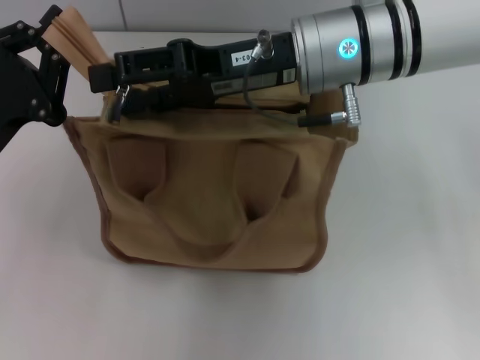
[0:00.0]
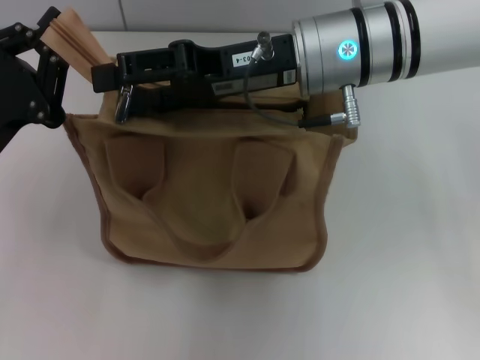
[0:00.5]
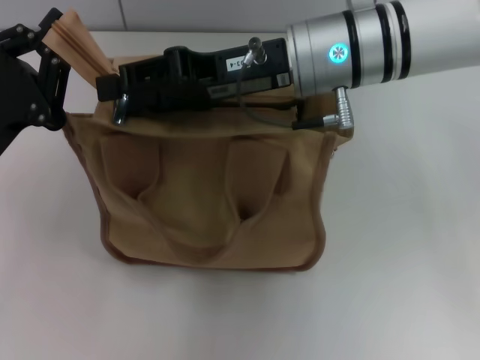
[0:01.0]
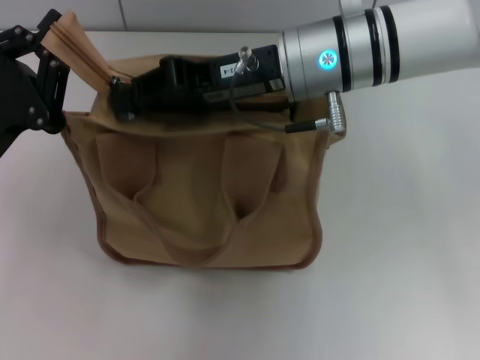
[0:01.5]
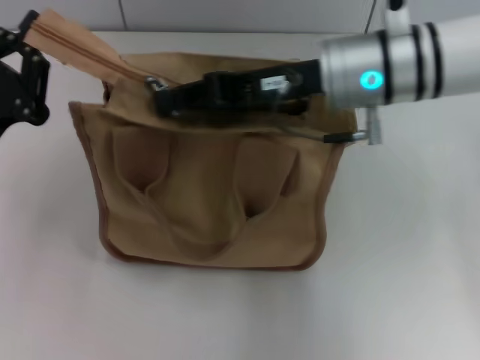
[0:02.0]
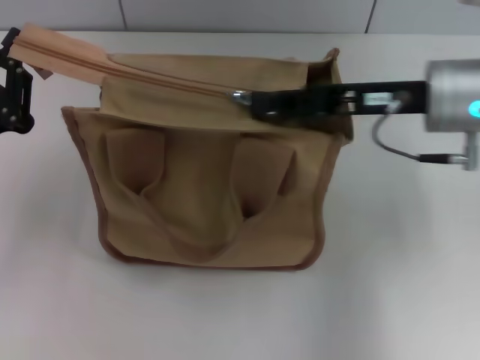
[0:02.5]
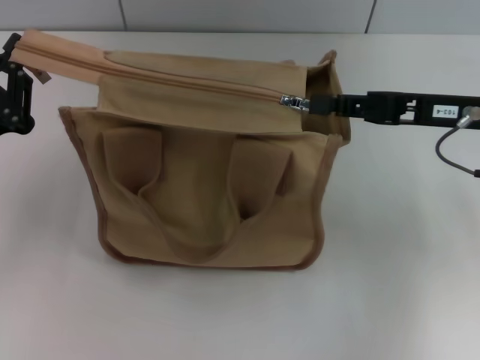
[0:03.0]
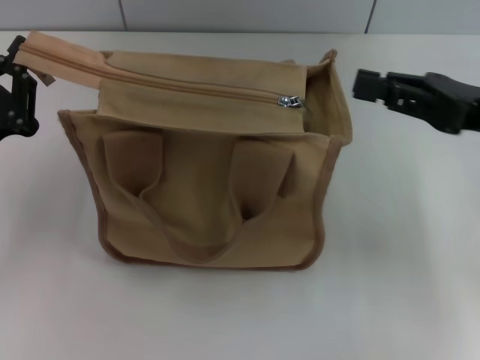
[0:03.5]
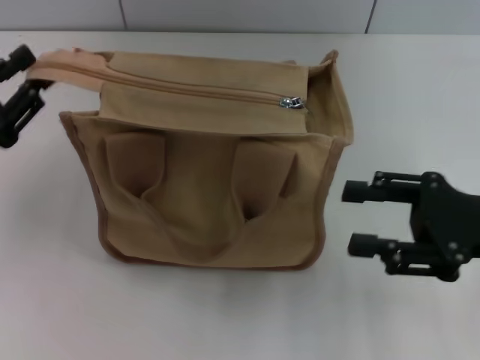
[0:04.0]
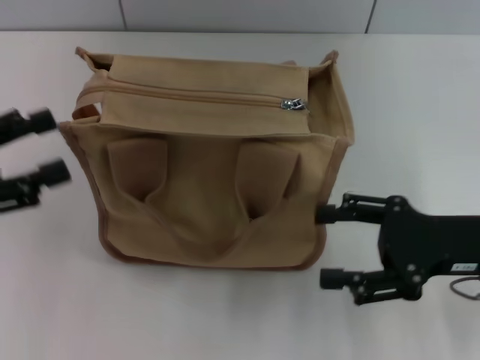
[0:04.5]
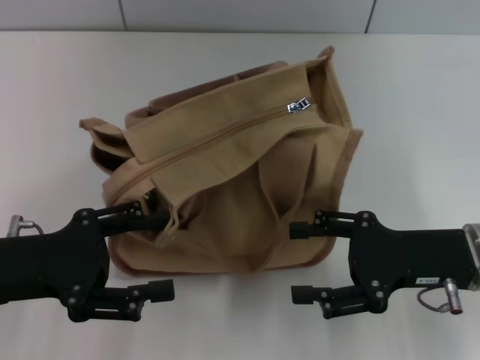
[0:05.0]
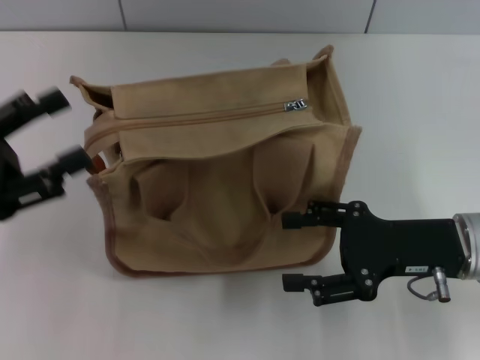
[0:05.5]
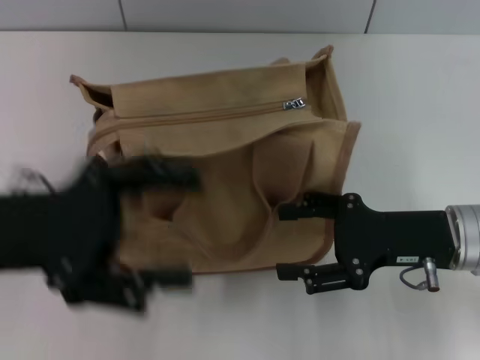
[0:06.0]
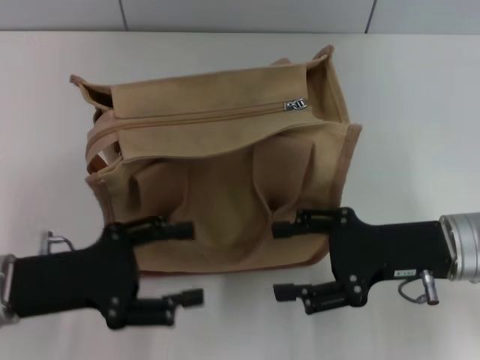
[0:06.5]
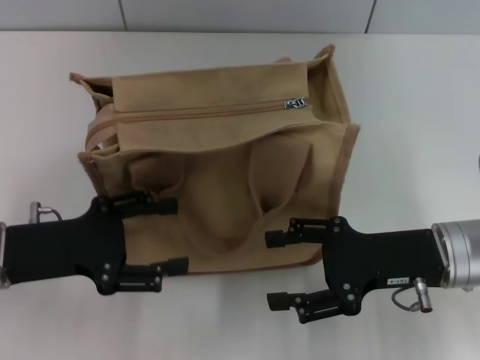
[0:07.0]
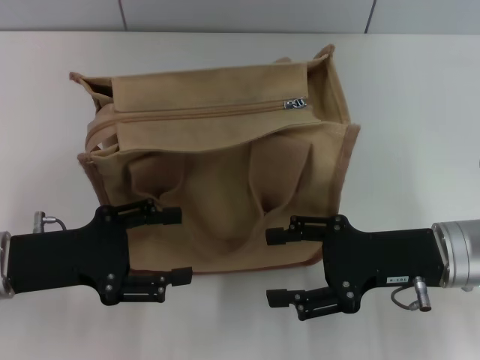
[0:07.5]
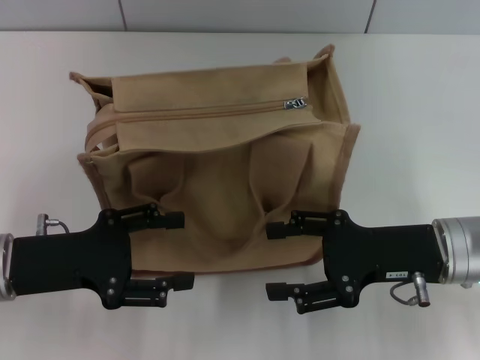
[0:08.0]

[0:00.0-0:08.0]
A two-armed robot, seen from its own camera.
Step, 0:00.0 to 0:03.0: Pull up the zipper with your right hand.
Step, 0:03.5 to 0:04.0: Grab the zipper with your left hand.
0:00.0 to 0:02.0: The right gripper closes up.
0:02.0 to 0:04.0: The right gripper heads to the right and backward, covering approximately 20 cm, and opens up.
0:04.0 to 0:06.0: The left gripper goes left and right, roughly 10 cm each way, reversing 2 times, and opens. The right gripper changes place by roughly 5 cm, and opens its fingers.
0:06.0 to 0:08.0: The left gripper goes some 5 cm downward.
